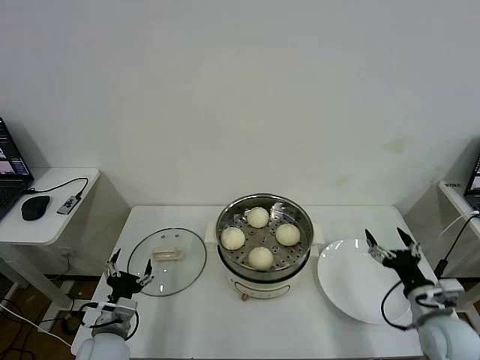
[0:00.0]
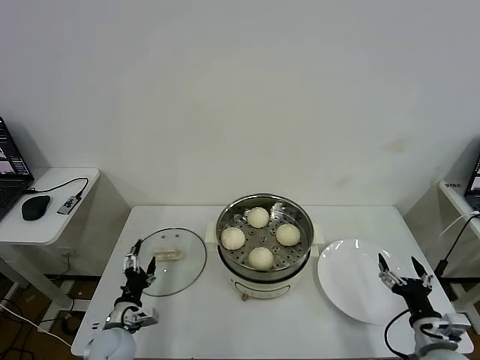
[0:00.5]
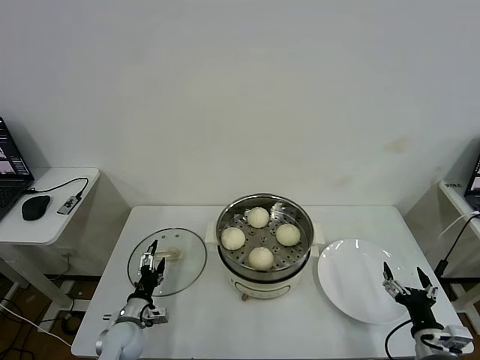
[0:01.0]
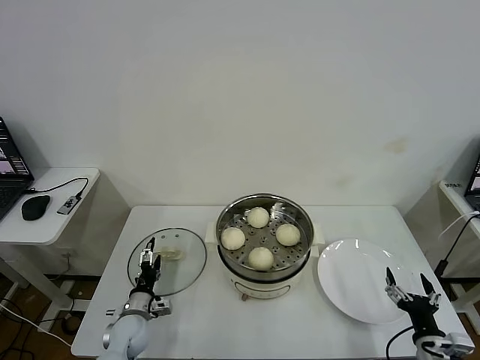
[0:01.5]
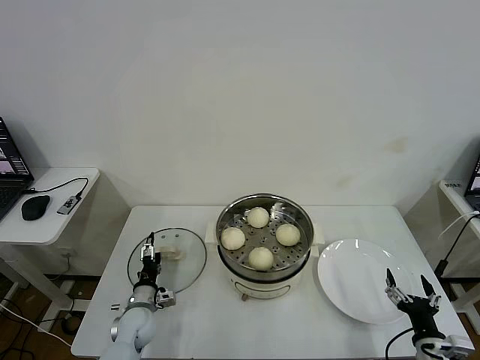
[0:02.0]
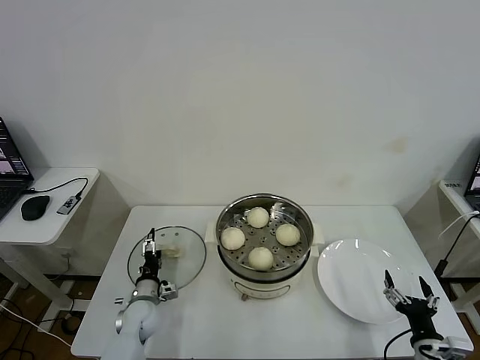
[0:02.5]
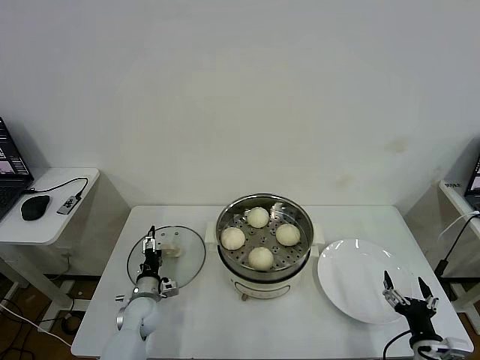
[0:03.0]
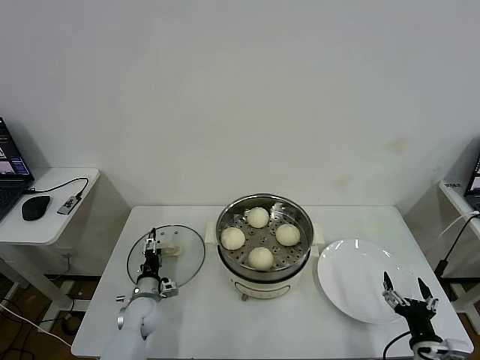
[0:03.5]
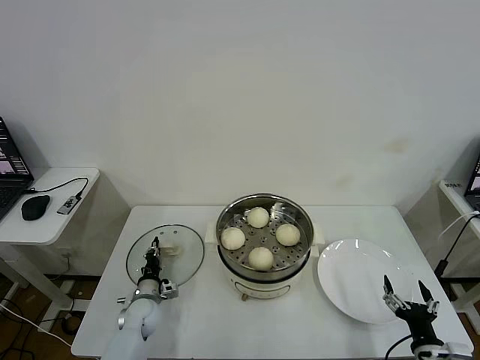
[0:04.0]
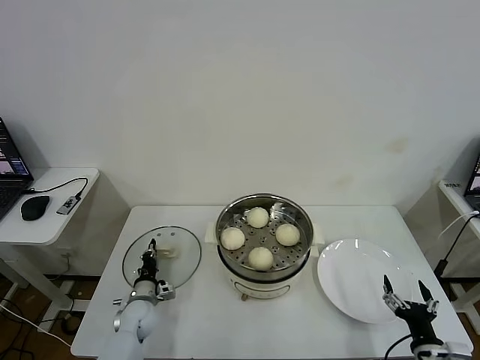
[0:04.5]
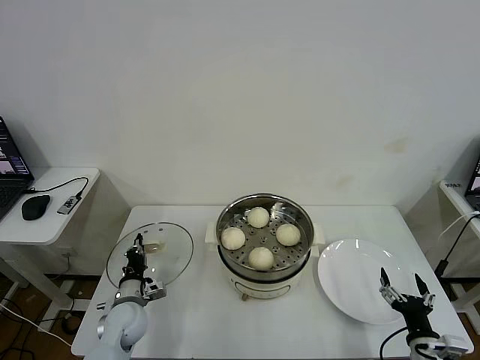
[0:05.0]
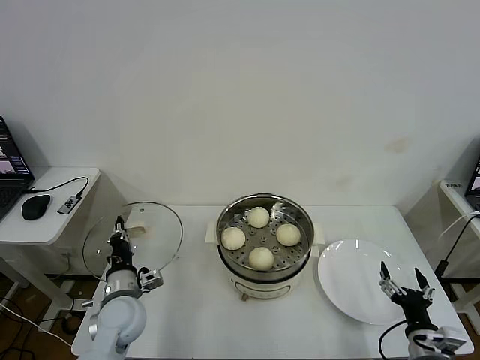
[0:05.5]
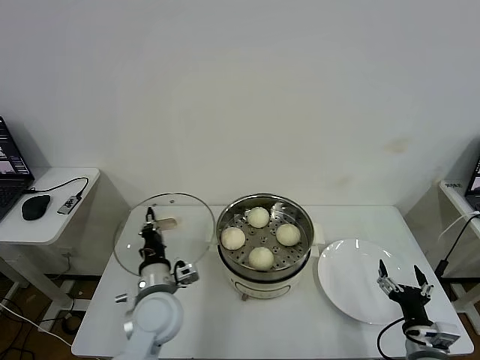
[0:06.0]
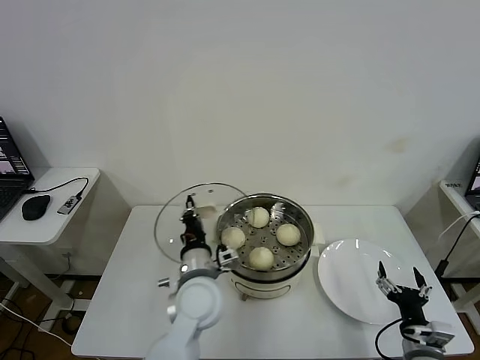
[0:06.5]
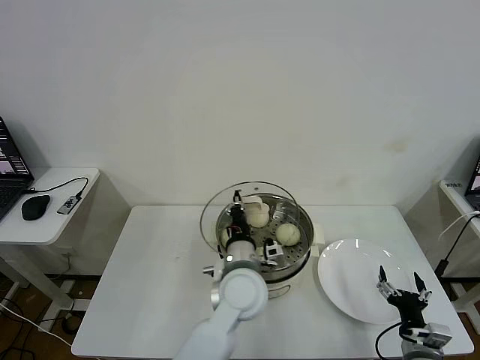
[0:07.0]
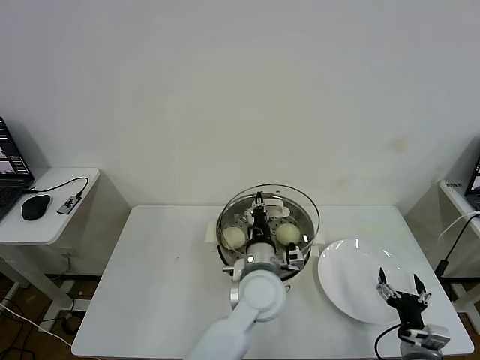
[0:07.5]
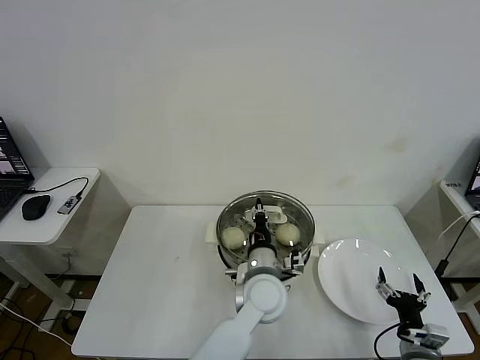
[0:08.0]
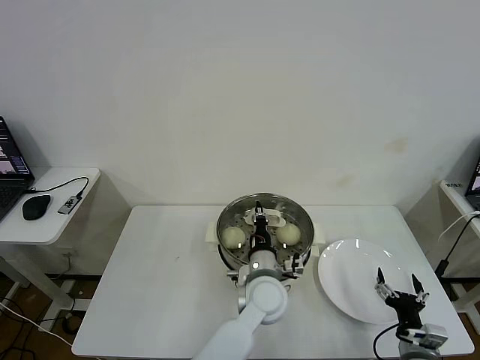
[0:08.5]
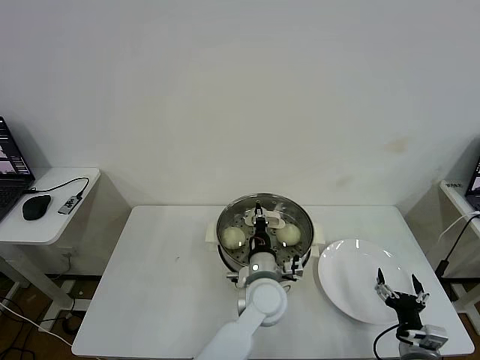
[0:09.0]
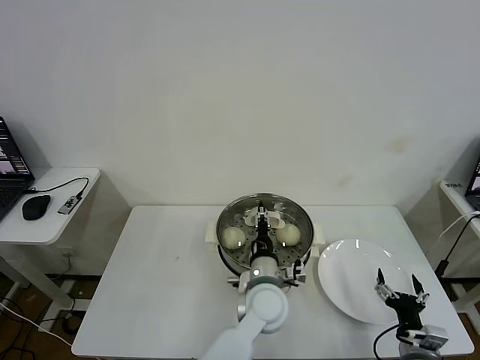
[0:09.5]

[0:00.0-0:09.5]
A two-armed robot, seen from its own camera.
Task of the whole recording: take steamed baozi put them in steamer then cover it.
Step, 0:00.0 to 0:04.5: Grasp the pot lid with left gripper.
0:00.0 to 0:02.0: The right gripper goes some 10 cm backward and downward, while the left gripper is displaced downward and forward by about 15 cm.
0:02.0 to 0:04.0: The left gripper closes its fingers.
0:04.0 to 0:05.5: The left gripper travels upward by roughly 15 cm.
0:05.5 to 0:07.5: The left gripper shifts some 30 cm to the right.
0:07.5 to 0:09.5: The left gripper opens up.

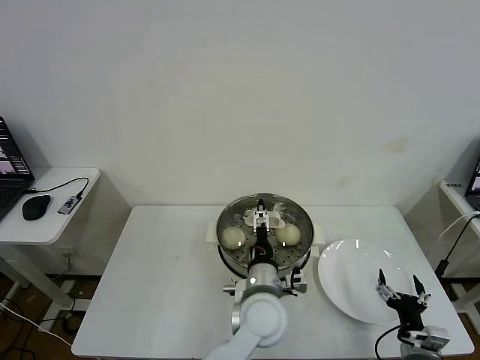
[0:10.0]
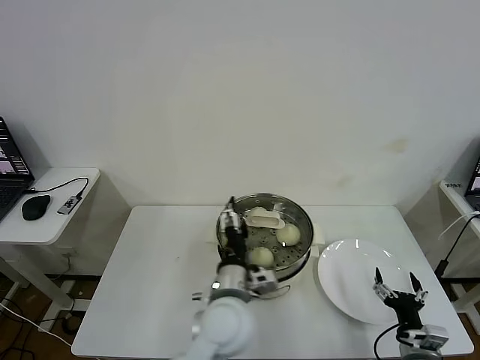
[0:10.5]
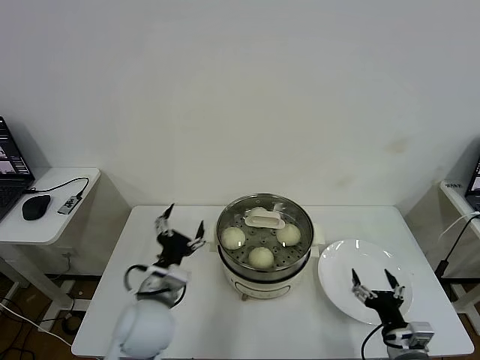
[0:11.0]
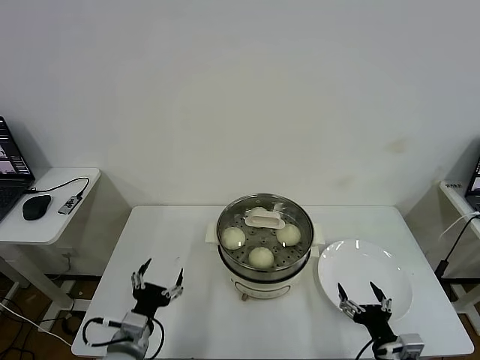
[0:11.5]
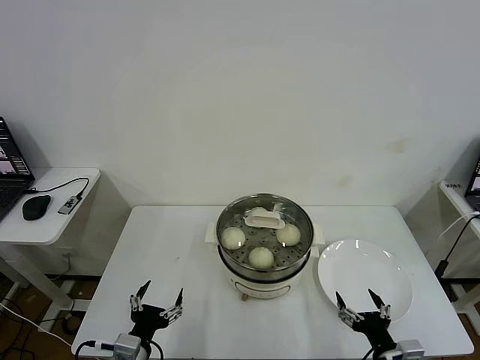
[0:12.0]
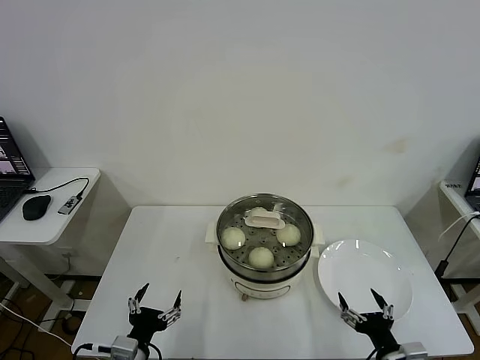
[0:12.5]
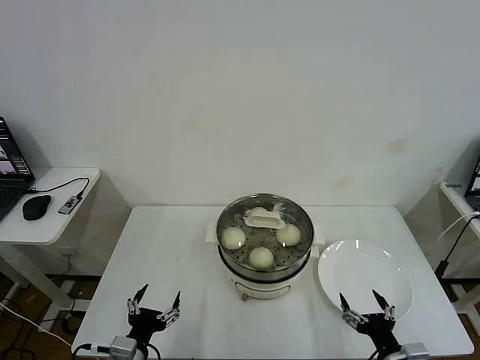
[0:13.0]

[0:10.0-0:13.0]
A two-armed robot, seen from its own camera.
Task of the whole recording: take steamed baozi put them in steamer then cover it.
0:10.0 to 0:11.5: The left gripper shifts roughly 30 cm to the left. Meanwhile the right gripper travels to the left by about 5 cm.
0:11.5 to 0:13.0: The left gripper moves backward, approximately 5 cm.
